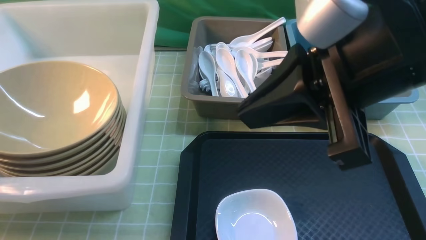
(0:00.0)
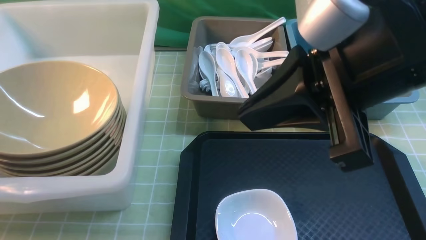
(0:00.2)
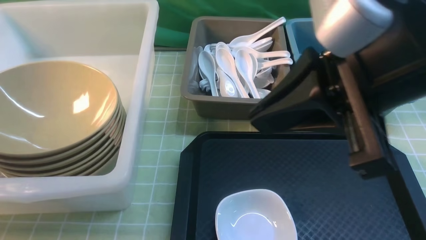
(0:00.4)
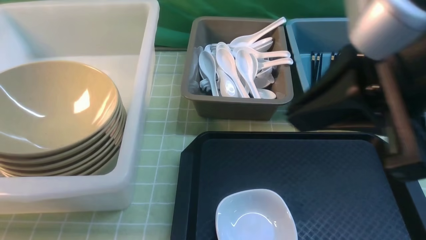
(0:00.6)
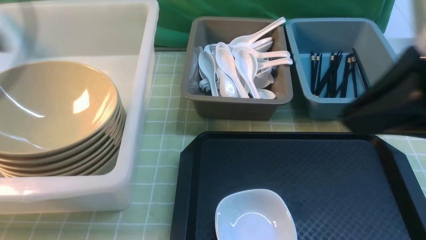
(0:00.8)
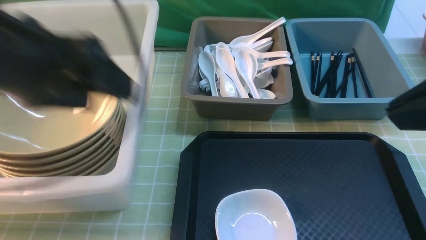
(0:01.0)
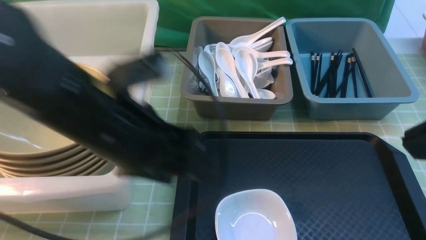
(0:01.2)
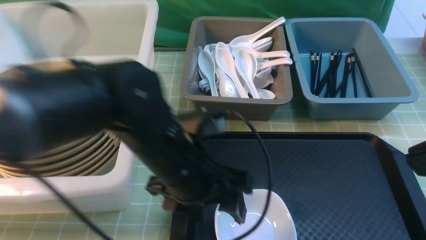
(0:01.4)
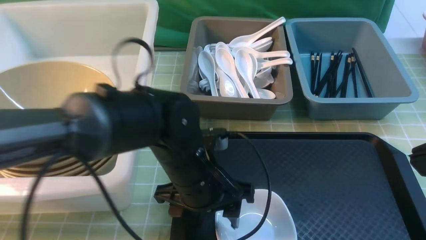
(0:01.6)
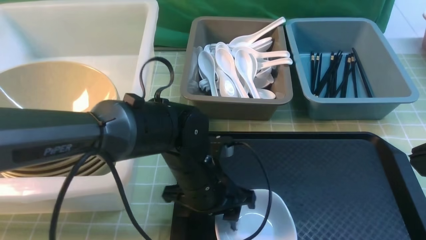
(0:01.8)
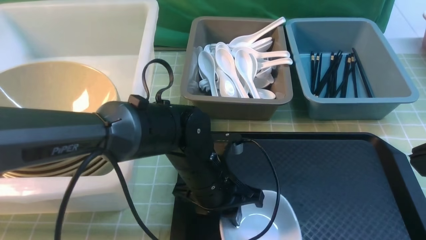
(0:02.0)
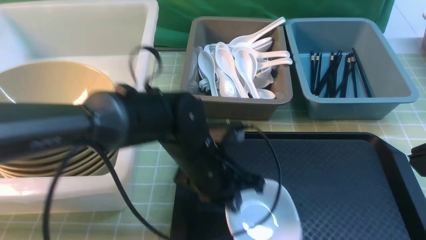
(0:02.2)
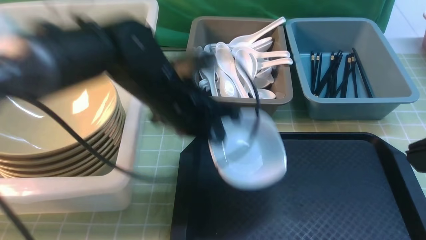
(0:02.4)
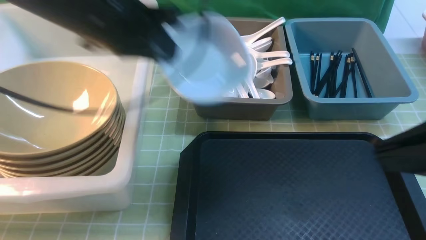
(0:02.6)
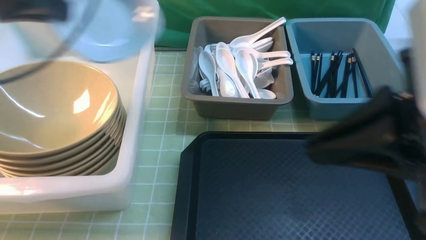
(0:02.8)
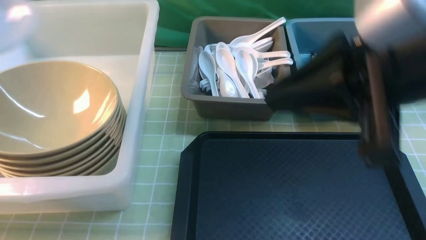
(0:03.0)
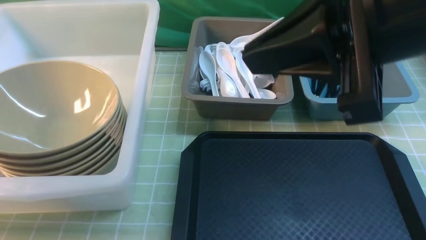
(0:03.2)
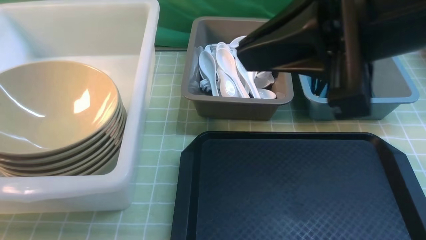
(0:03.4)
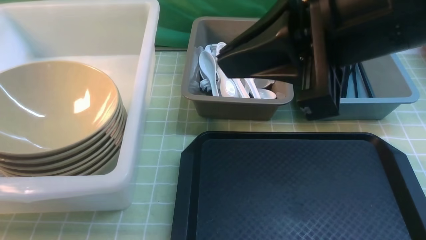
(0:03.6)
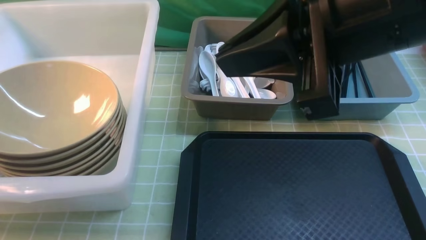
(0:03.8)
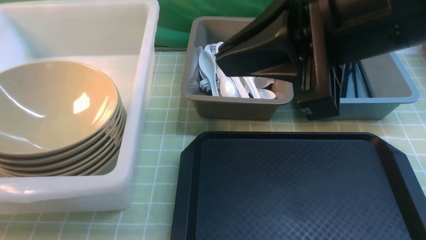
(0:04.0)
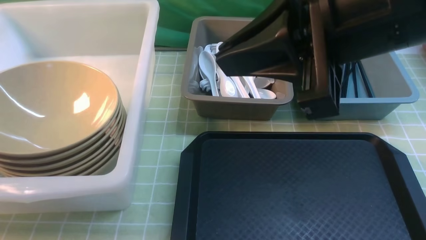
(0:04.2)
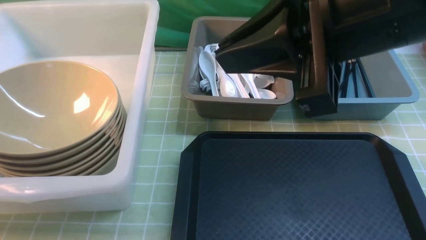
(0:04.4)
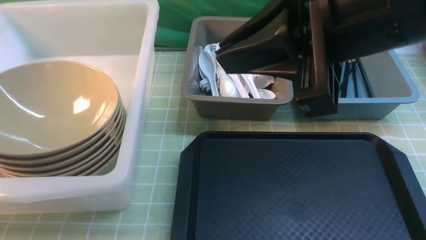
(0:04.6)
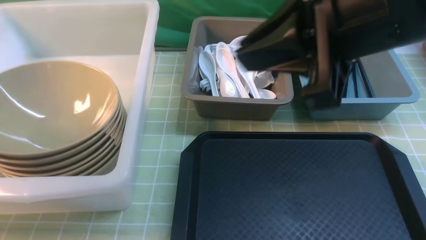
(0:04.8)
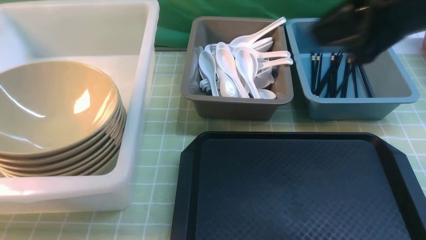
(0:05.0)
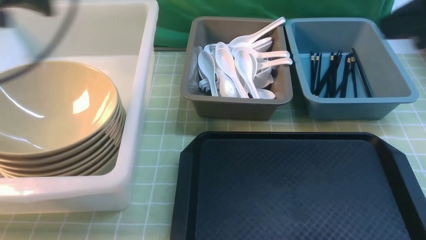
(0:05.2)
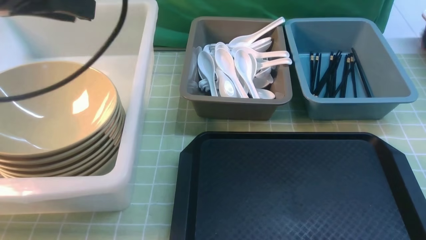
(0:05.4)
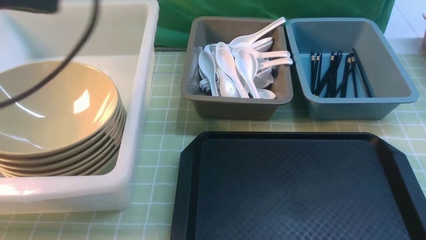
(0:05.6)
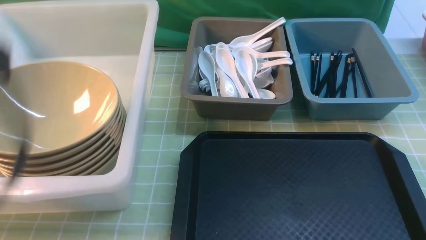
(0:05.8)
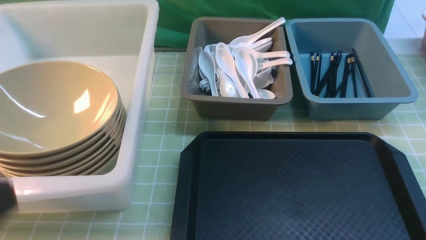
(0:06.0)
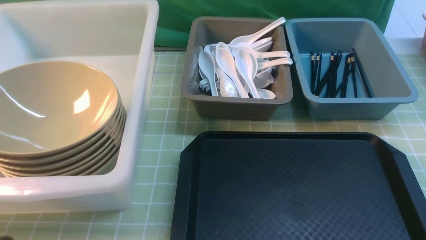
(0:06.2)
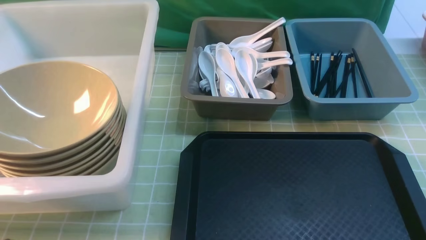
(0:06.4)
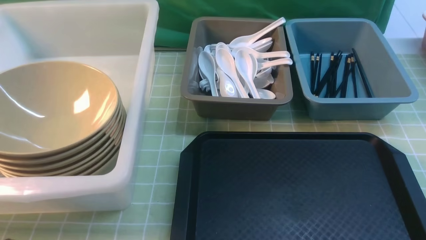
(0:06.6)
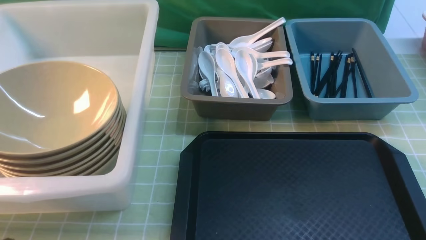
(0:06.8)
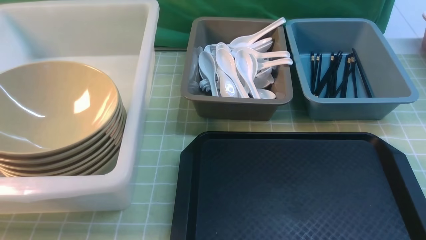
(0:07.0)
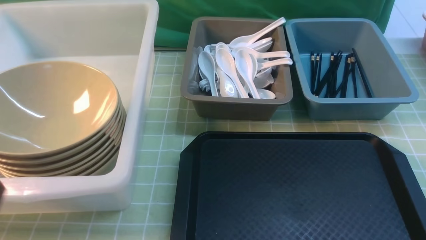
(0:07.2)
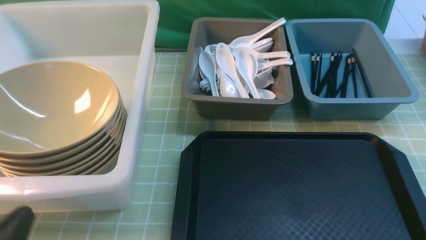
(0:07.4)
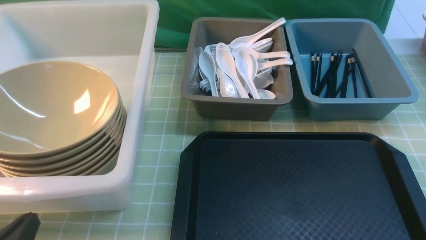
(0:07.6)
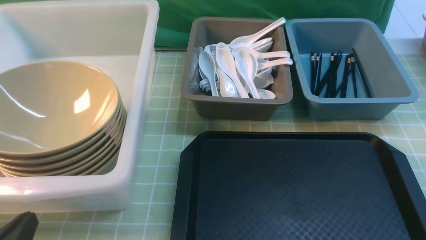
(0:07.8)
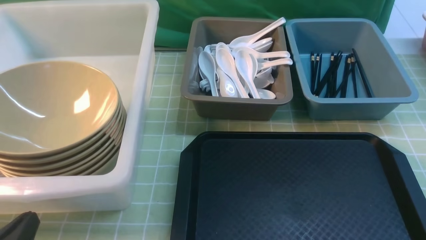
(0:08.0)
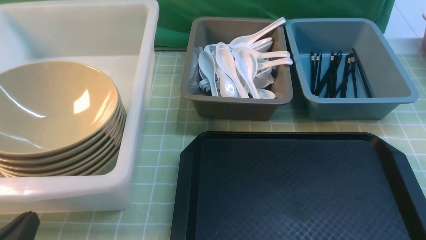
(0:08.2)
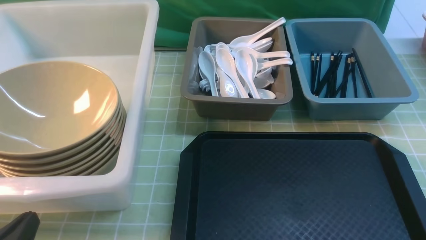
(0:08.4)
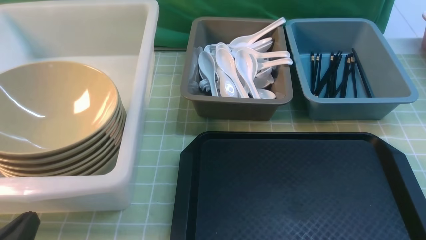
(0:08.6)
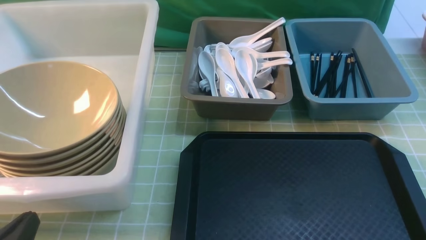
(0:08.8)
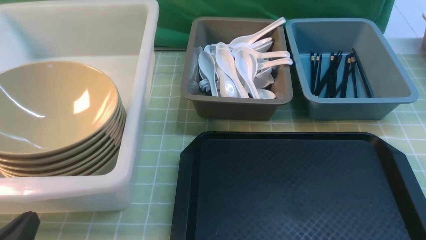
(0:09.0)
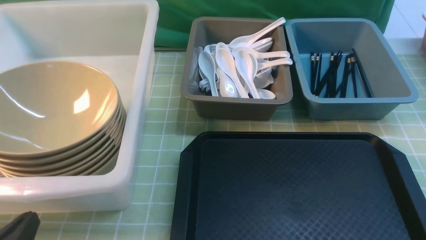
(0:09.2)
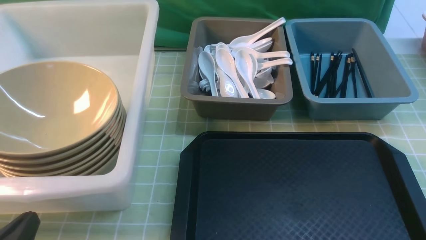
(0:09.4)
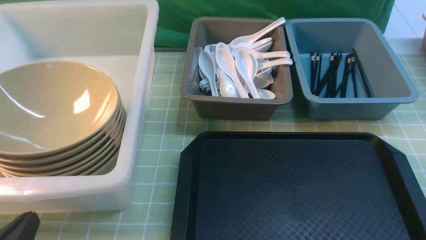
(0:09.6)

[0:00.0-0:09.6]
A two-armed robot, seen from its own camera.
Task of the whole recording: on green table put chopsticks spoon bowls plates into blue grey white boxes.
Step, 0:00.8 to 0:02.2: use the left arm to grab the plate.
Step, 0:02.4 to 0:05.2: use the left arm to put the plate into the large storage box on the left.
0:00.0 to 0:01.6: The left gripper travels to the right by approximately 40 cm, and opens its fingers; the right gripper is displaced to the right and backward by roughly 15 cm.
0:01.6 to 0:03.2: The right gripper is displaced to the left and forward by about 10 cm; the left gripper shifts some 50 cm to the left and upward, and closes its fingers.
0:03.2 to 0:04.8: The left gripper heads forward, covering approximately 5 cm, and opens.
0:04.8 to 0:06.4: The right gripper heads backward, downward and to the right, covering about 30 cm; the left gripper heads backward and to the right, covering some 35 cm, and closes its fingers.
0:06.4 to 0:08.0: The left gripper heads downward and forward, covering about 15 cm.

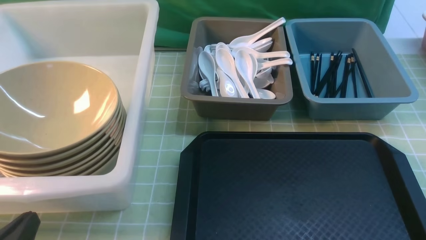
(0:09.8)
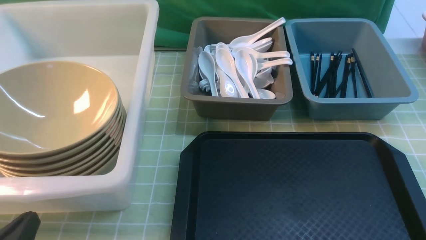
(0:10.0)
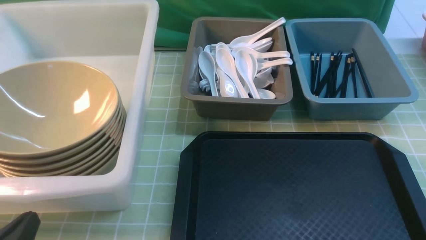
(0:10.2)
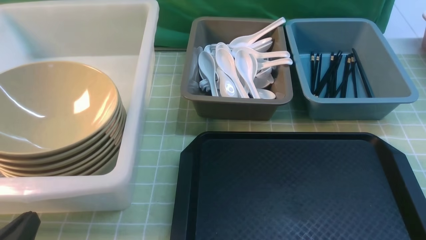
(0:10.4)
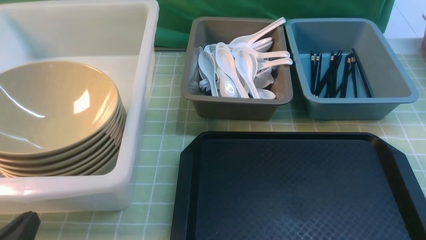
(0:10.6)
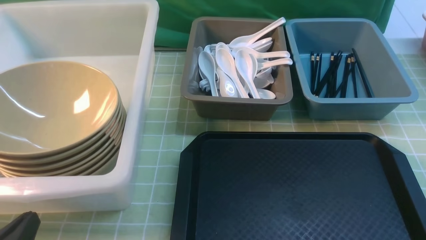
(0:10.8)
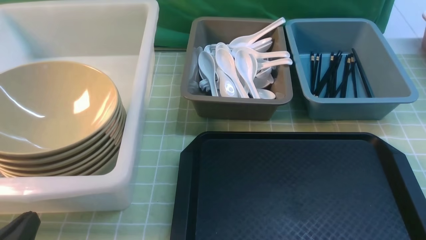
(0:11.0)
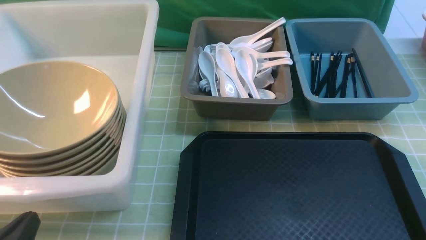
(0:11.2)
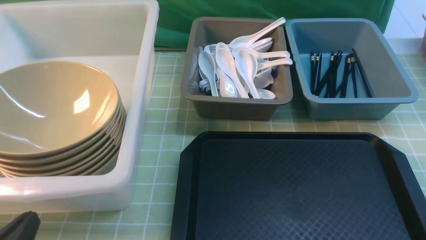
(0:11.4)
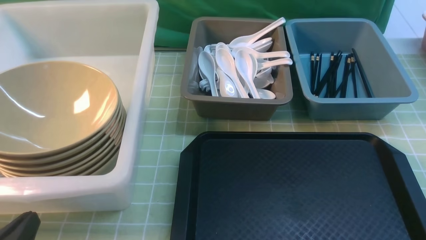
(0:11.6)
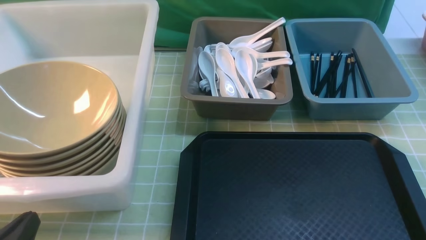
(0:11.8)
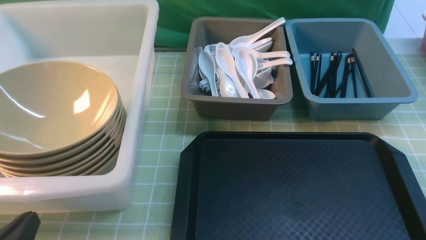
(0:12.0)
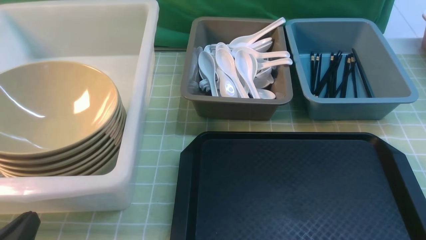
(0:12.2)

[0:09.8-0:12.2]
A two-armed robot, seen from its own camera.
Task of the whole recording: on green table put chopsticks spoon bowls plates into blue grey white boxes.
0:09.8 to 0:12.2: Neither gripper changes place.
